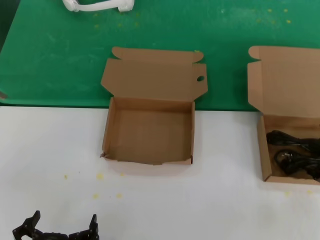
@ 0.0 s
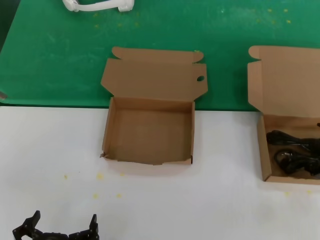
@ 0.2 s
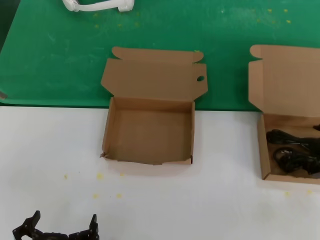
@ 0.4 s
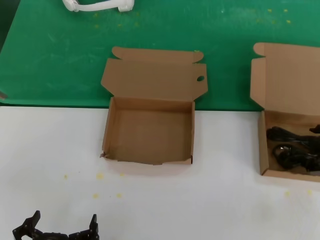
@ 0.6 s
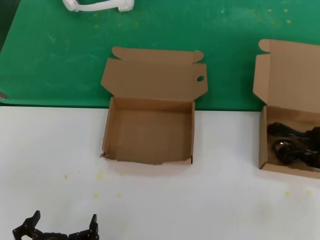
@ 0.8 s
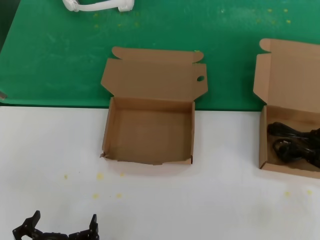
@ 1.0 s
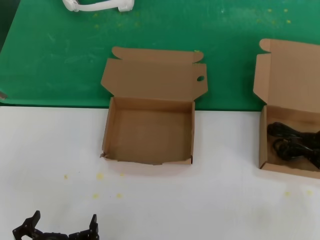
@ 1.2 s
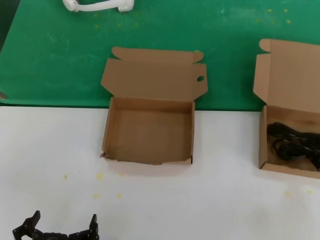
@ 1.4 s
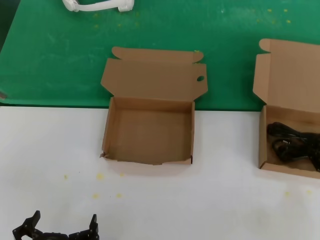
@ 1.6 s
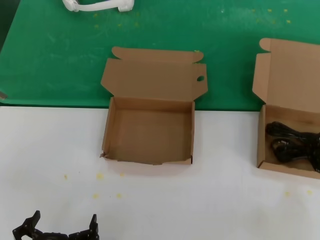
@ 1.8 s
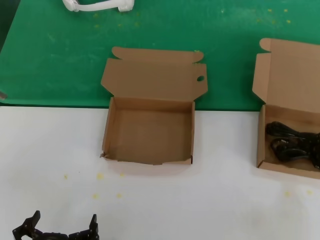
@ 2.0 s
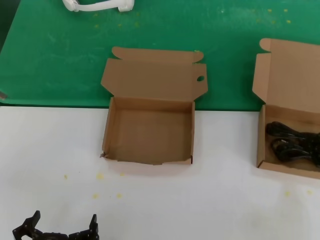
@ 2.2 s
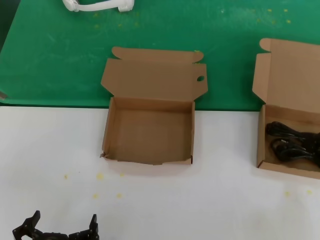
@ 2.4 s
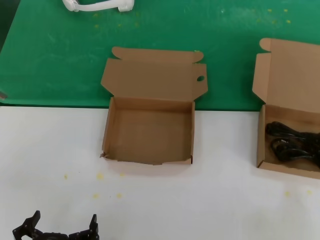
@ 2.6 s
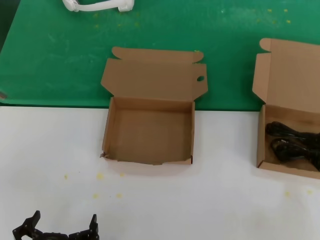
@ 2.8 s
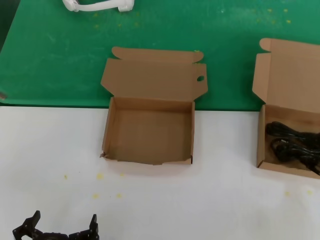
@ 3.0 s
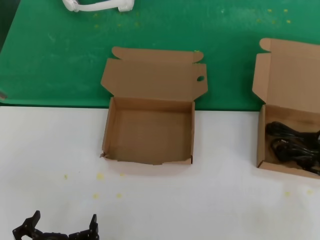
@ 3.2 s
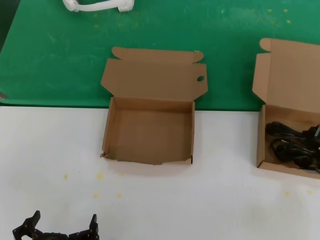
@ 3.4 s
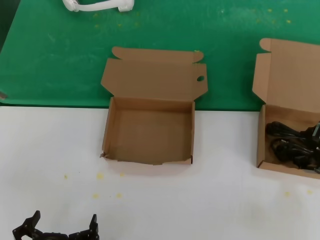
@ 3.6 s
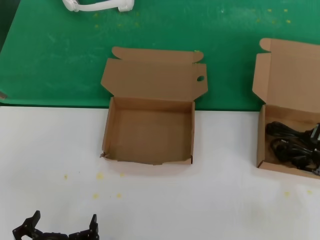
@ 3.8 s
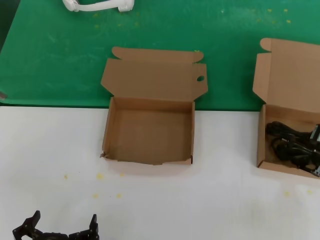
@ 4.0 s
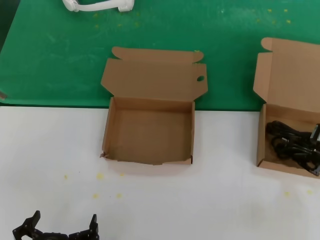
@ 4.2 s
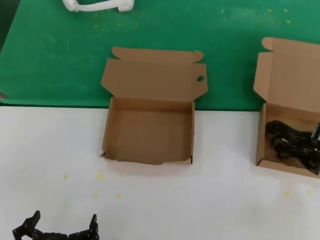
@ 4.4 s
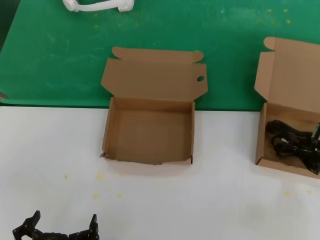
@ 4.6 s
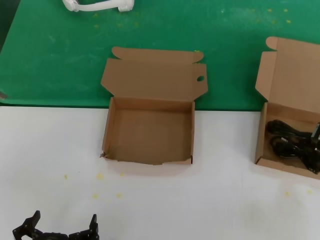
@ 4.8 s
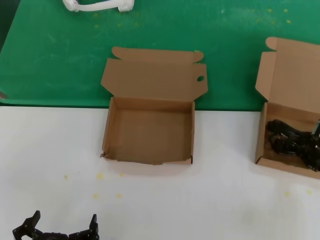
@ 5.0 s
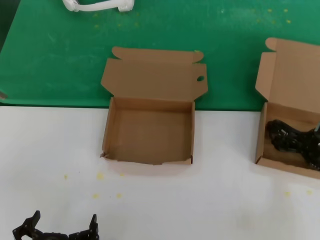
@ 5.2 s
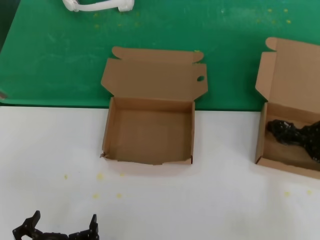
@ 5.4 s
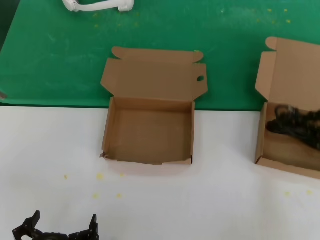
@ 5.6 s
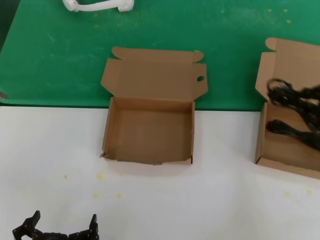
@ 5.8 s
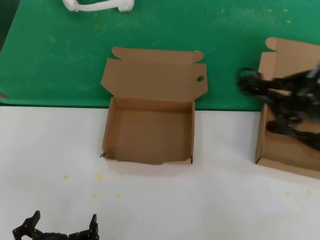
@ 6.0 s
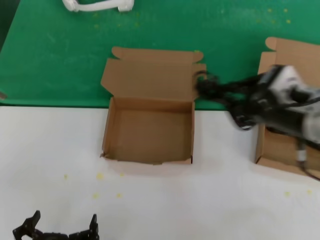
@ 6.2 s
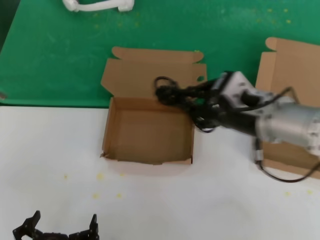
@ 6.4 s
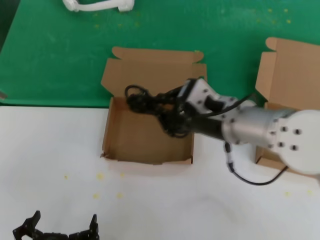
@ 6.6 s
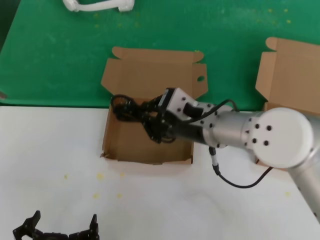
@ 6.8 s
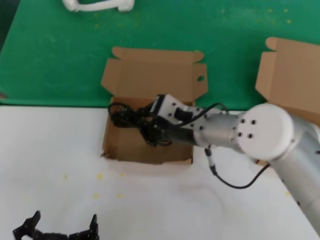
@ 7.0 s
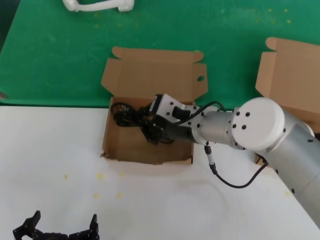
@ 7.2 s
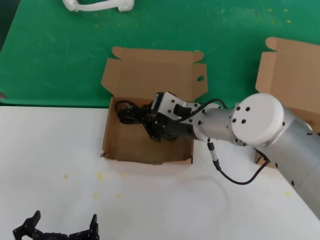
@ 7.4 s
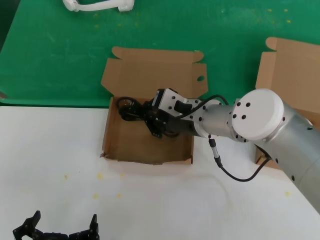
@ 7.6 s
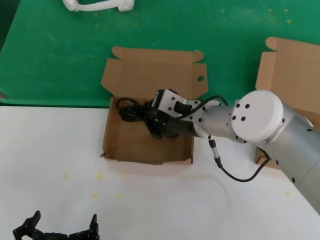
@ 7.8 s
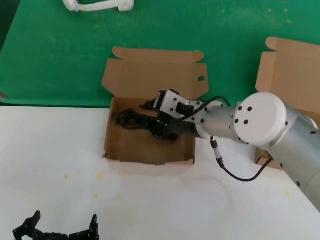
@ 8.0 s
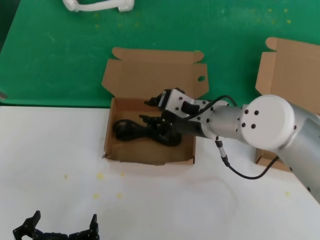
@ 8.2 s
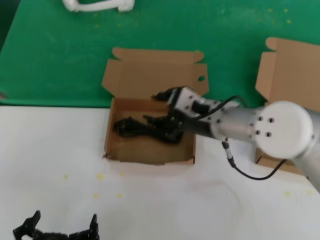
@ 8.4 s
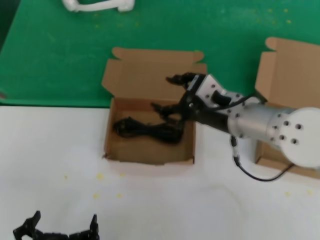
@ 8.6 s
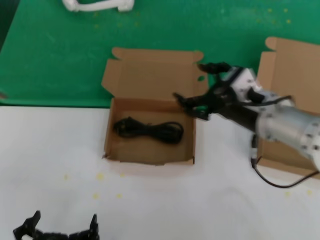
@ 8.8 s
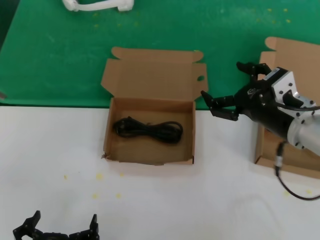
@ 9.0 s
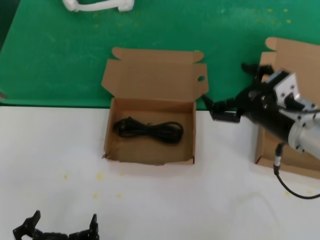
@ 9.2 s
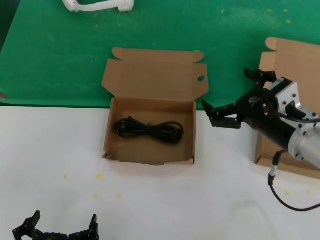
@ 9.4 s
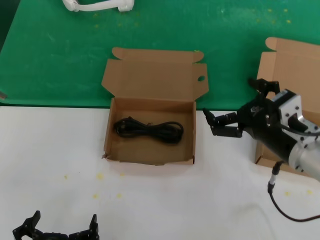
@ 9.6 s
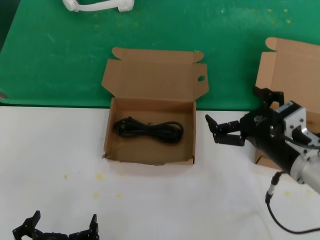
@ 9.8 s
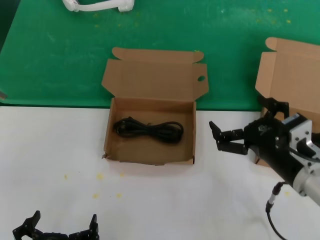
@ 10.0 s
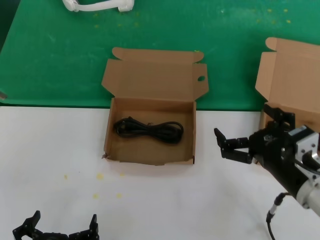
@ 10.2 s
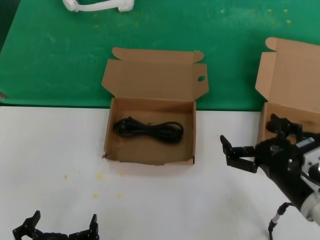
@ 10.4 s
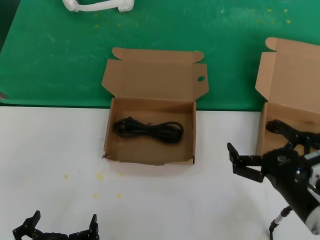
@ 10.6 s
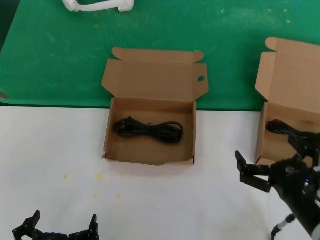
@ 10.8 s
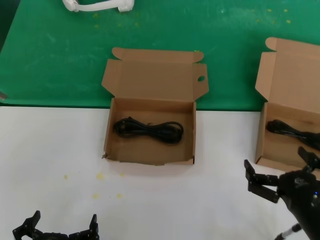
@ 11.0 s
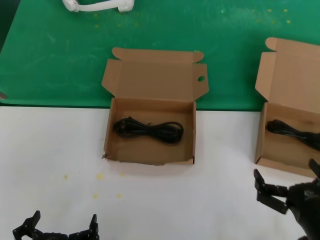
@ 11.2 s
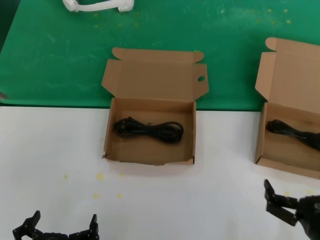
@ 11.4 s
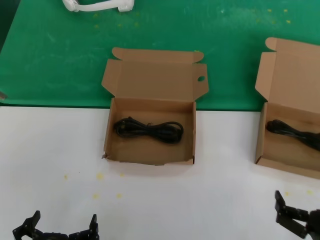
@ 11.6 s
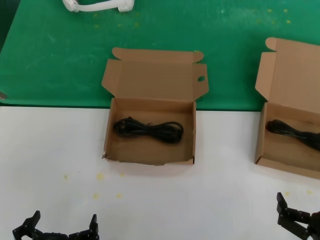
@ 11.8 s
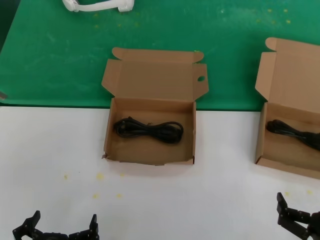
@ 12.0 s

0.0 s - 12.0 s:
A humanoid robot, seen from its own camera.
Task of the whole recording: take the parts from the box containing them and put them into an empty box.
Step, 1.8 s - 8.2 s: Place the data cable in the another box.
0.0 s - 1.6 s: The hands move only a little.
4.4 s - 6.0 s: The right hand travels upward, backward and to the left by approximately 15 cm.
6.0 s - 7.6 s: The right hand shifts approximately 25 cm to the left and forward.
7.6 s - 9.0 s: The right hand moves to the right and backward, some 15 cm.
9.0 s - 10.4 s: The right hand travels downward and backward by about 15 cm.
10.4 s - 12.0 s: The right hand goes about 15 cm backward and downward.
